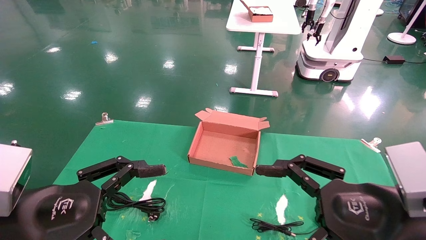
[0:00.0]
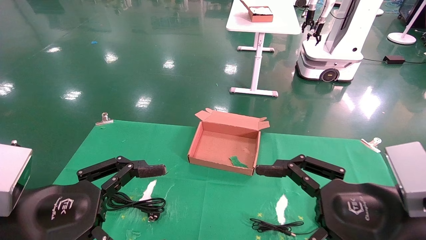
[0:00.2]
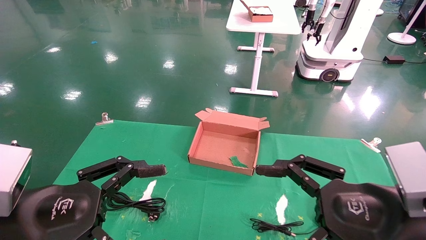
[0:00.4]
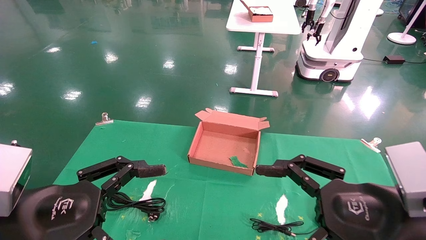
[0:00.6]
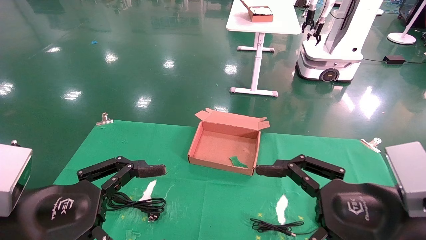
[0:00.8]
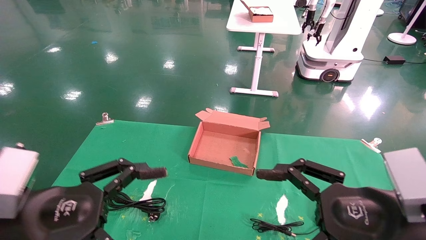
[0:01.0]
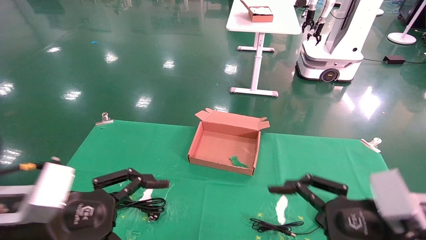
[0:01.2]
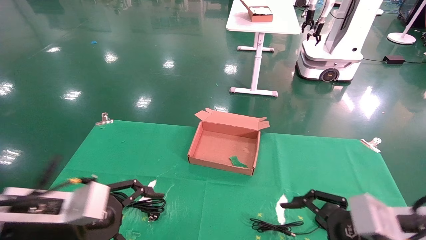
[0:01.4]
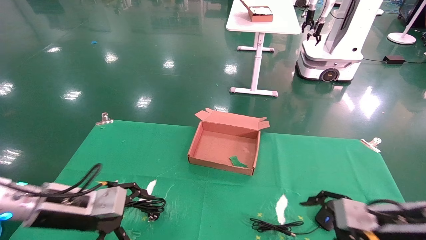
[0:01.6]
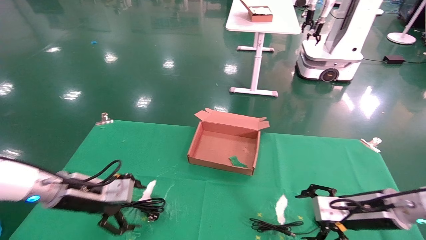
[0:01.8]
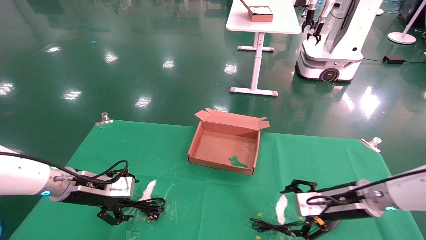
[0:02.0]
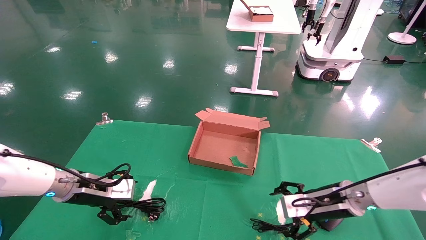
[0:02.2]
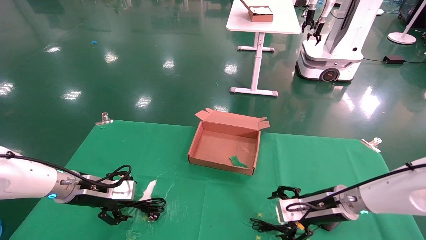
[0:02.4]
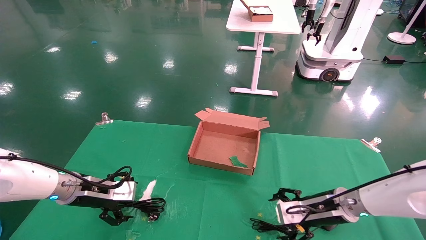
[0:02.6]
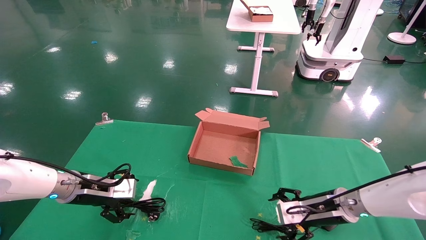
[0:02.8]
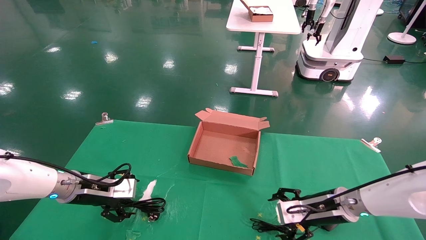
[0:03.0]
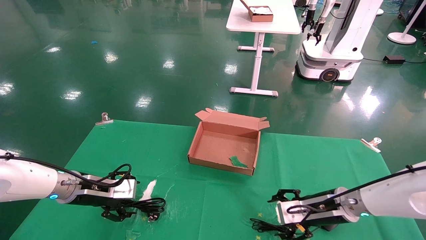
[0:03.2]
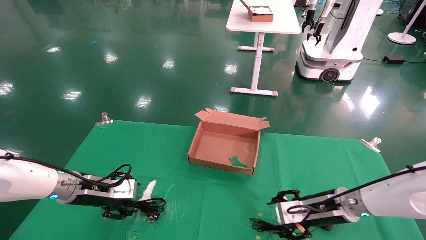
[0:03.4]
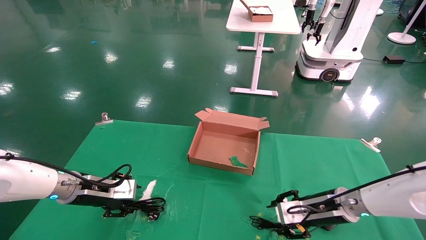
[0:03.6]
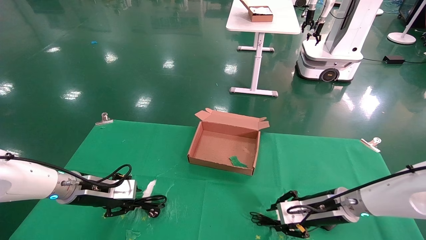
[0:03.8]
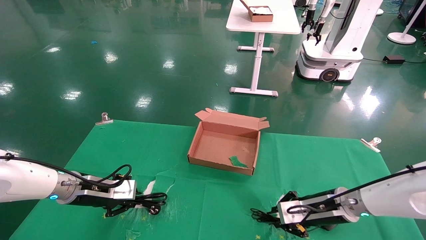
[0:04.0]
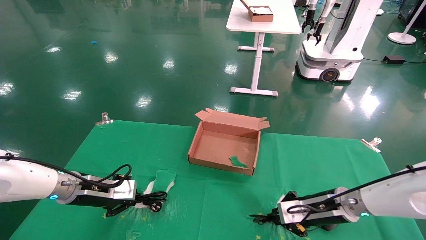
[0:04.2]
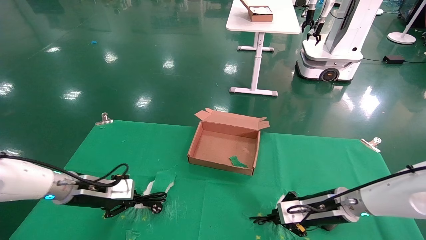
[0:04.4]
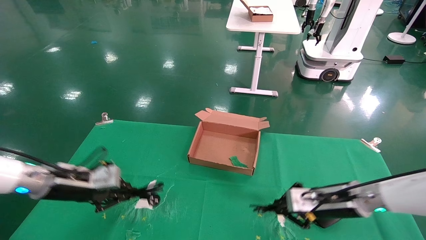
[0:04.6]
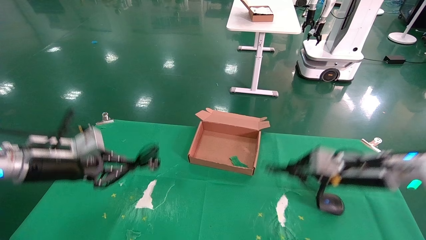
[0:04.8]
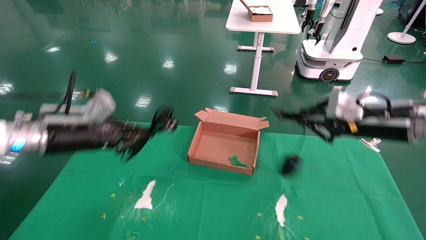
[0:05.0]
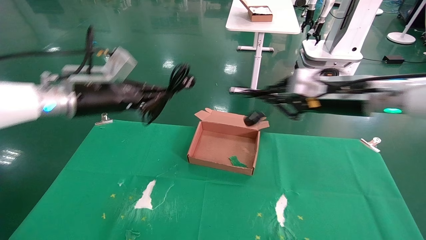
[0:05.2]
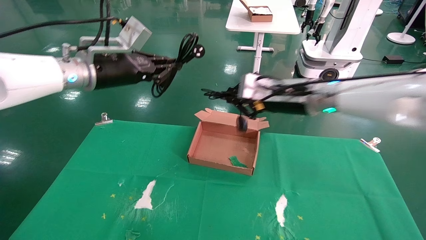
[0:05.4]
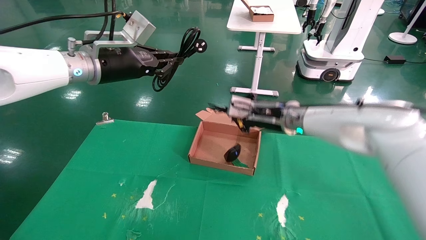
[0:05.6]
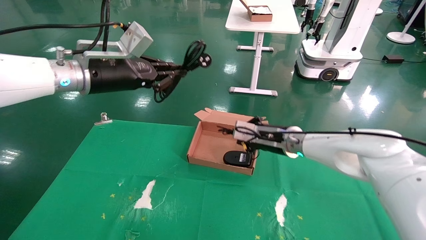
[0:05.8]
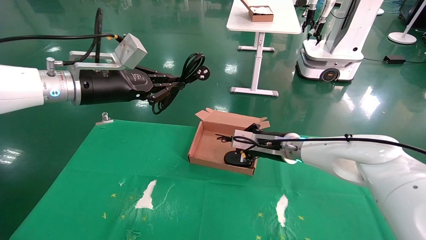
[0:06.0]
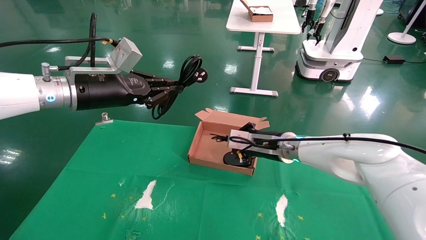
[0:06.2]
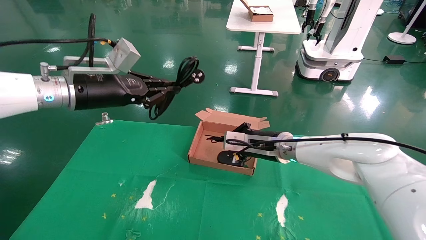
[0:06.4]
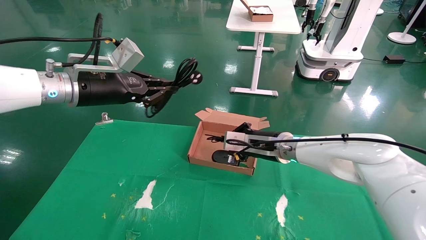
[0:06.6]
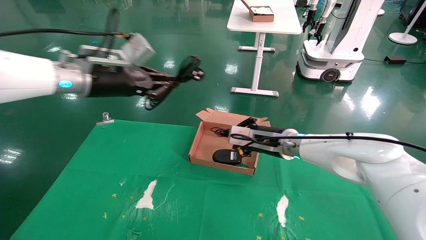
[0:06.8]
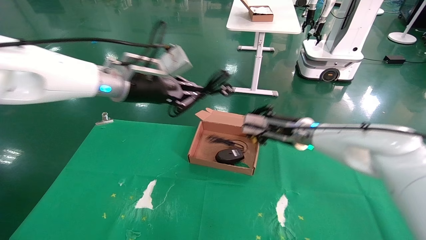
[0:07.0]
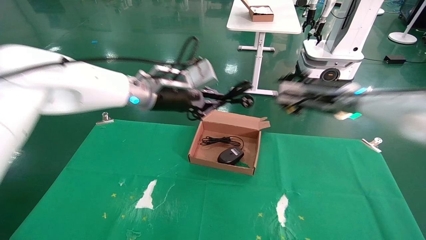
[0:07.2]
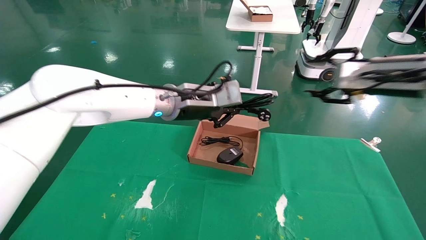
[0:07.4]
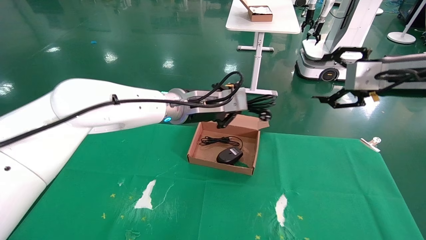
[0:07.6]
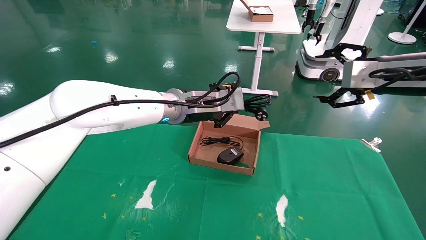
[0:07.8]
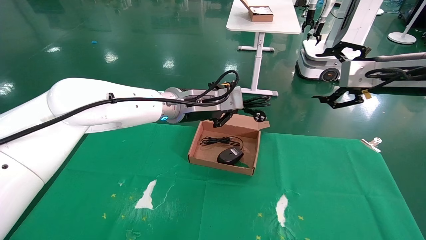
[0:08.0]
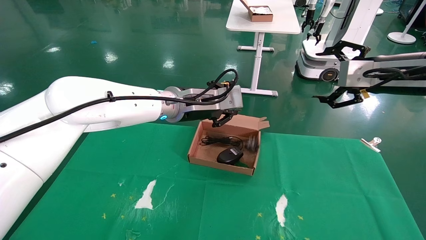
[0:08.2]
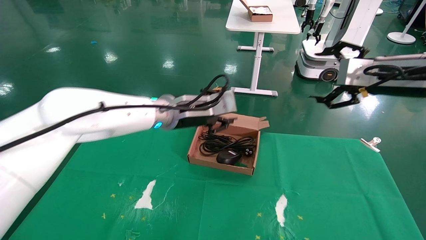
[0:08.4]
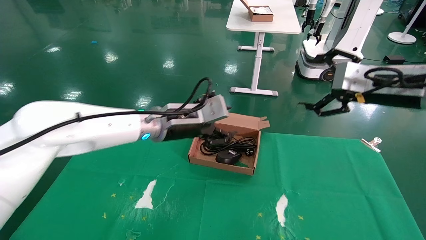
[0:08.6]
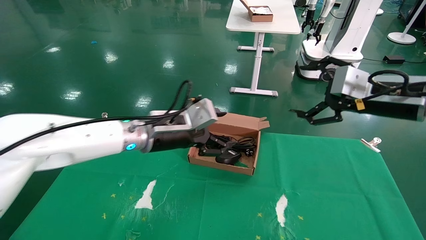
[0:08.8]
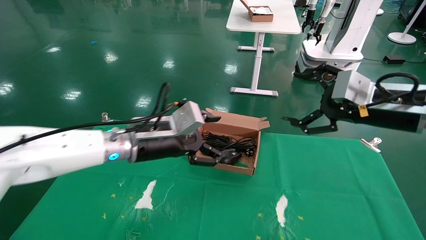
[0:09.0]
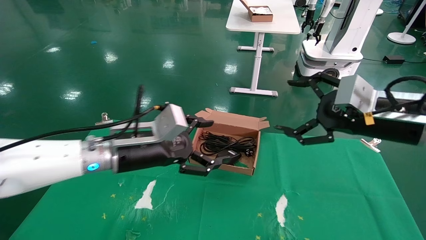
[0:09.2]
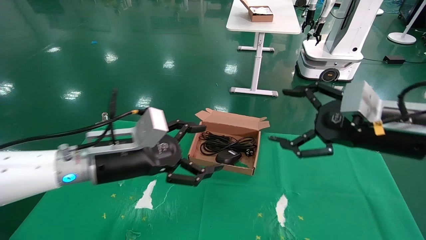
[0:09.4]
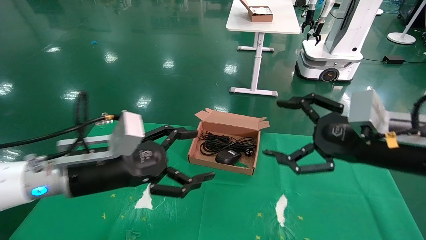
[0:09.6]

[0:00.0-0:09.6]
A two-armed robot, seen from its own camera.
Step, 0:01.6 to 0:04.8: Grab and lift both the mouse and power cord from the accessory packaging area at the same time.
Step, 0:05.0 to 0:08.4: Place the mouse and power cord into the box.
0:00.0 to 0:01.6: The left gripper travels forward by about 15 cm, while the right gripper travels forward, downward and to the right by roughly 15 cm.
0:01.6 to 0:03.2: The left gripper shifts approximately 10 cm forward. The right gripper is displaced forward and to the left by some 10 cm.
0:03.2 to 0:04.8: Both grippers move upward, about 10 cm. The right gripper closes, while the left gripper closes.
0:04.8 to 0:06.4: The left gripper travels upward and to the right by some 15 cm, while the right gripper moves to the left and forward, approximately 20 cm.
0:06.4 to 0:08.0: The left gripper travels to the right by some 20 cm, while the right gripper travels to the right, upward and backward by about 30 cm, and opens up.
0:08.0 to 0:09.6: The right gripper goes approximately 15 cm downward, backward and to the left, while the left gripper heads to the left, backward and downward, covering roughly 20 cm, and opens its fingers.

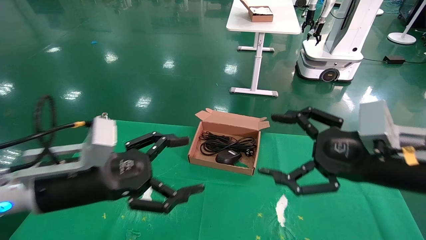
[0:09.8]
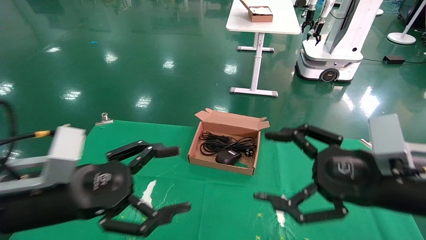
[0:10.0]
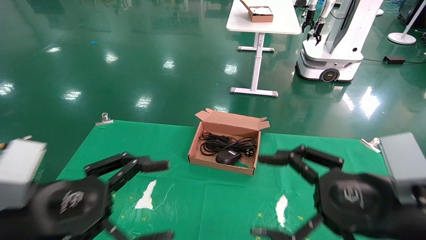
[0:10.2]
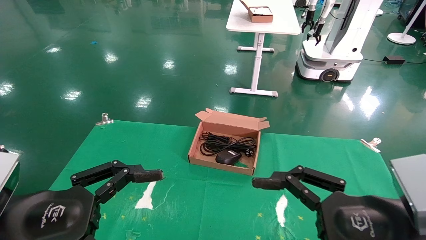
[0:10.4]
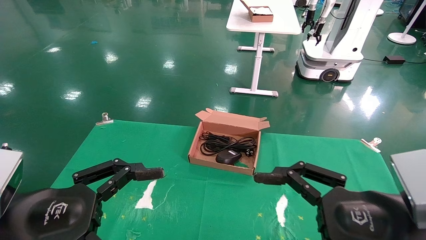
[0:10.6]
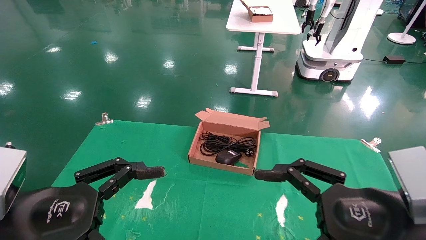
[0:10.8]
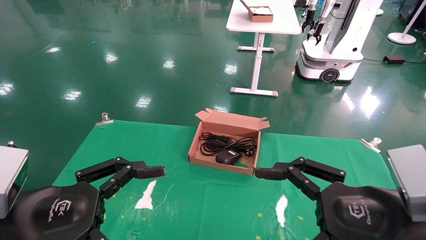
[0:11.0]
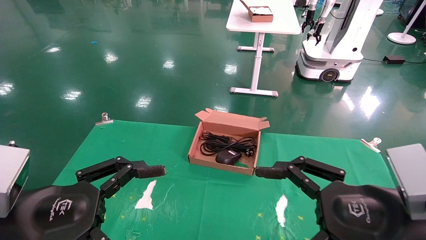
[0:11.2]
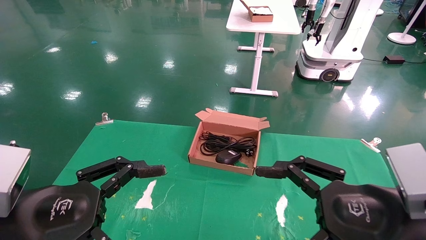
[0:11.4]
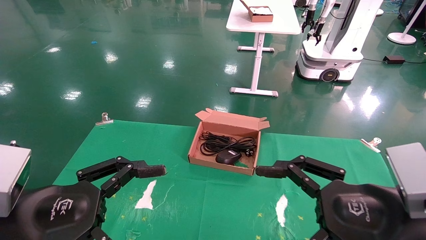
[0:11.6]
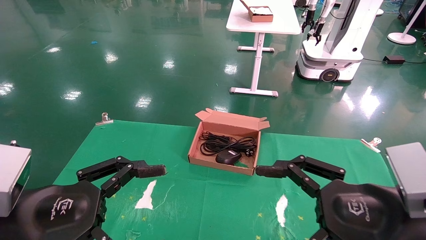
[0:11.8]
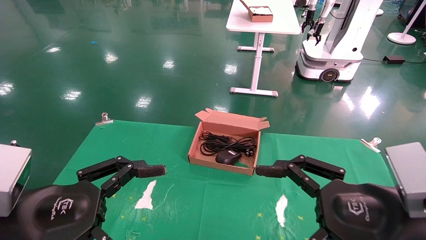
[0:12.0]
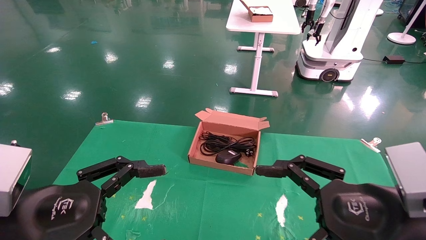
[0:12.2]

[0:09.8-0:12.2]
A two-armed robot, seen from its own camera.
0:09.8 to 0:11.0: The two grippers go about 10 cm backward.
0:11.0 to 0:12.2: Both grippers stay put.

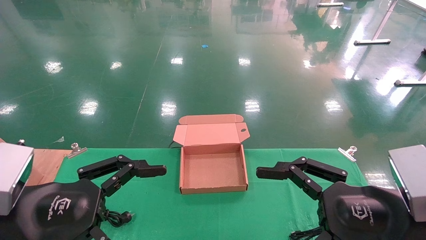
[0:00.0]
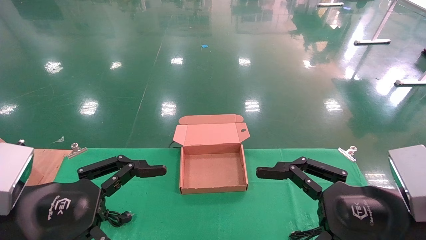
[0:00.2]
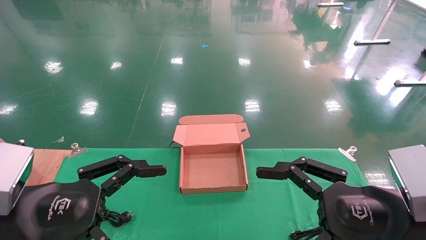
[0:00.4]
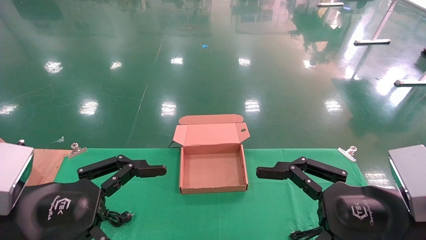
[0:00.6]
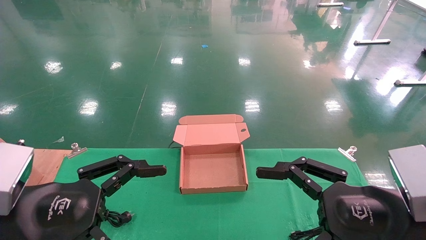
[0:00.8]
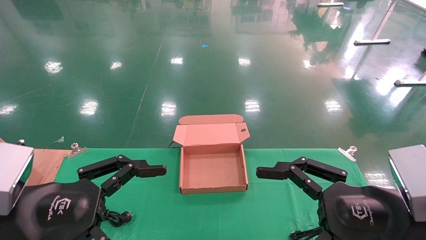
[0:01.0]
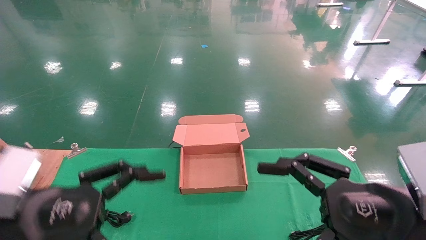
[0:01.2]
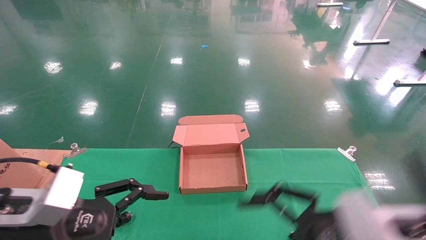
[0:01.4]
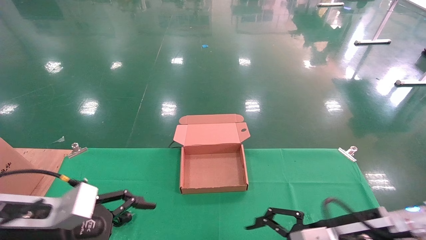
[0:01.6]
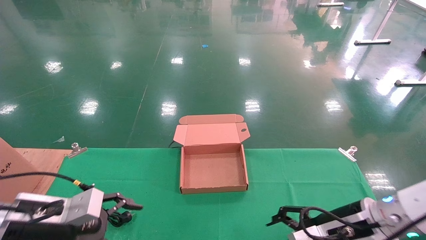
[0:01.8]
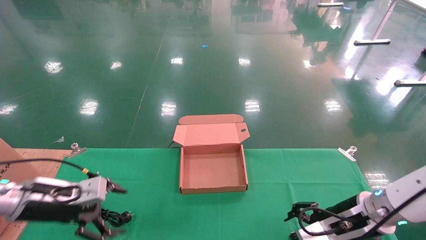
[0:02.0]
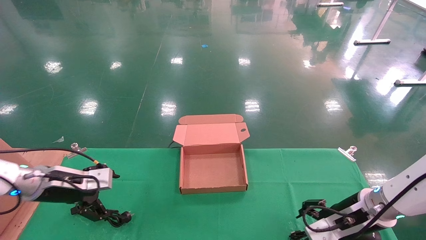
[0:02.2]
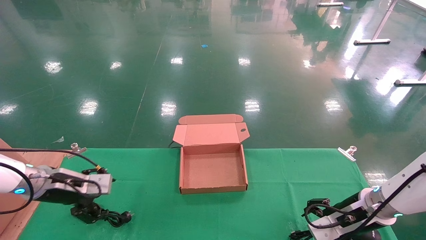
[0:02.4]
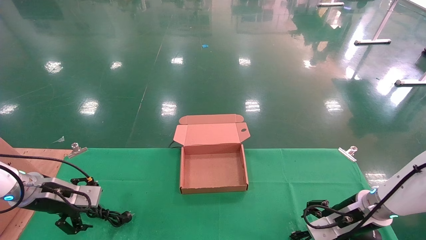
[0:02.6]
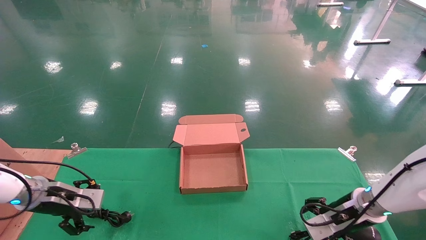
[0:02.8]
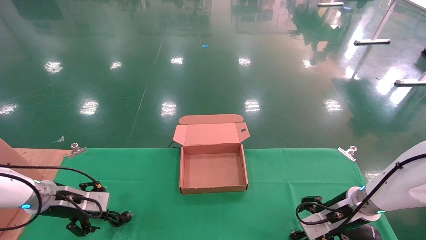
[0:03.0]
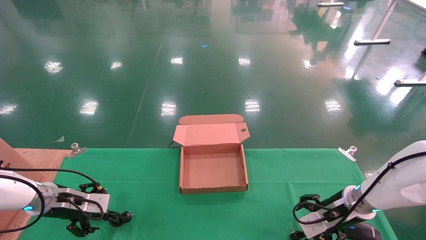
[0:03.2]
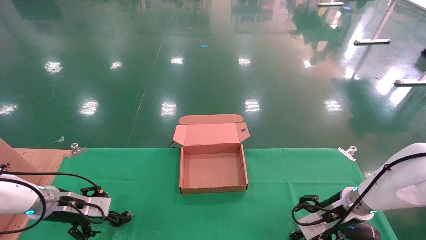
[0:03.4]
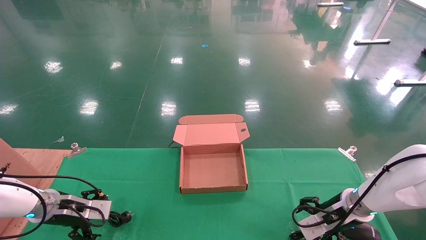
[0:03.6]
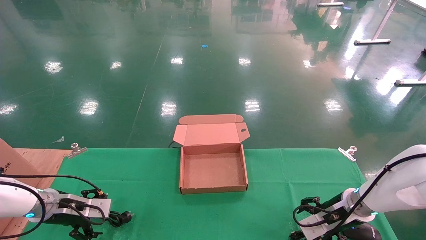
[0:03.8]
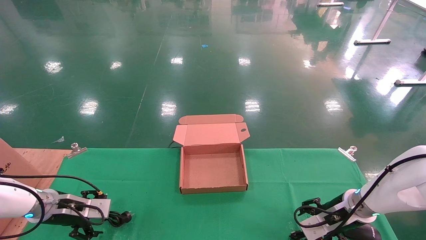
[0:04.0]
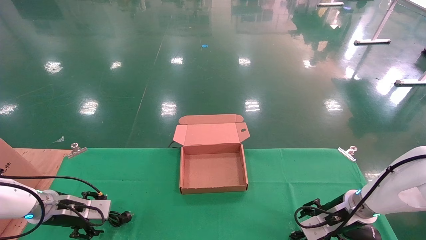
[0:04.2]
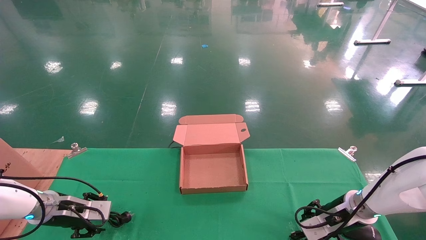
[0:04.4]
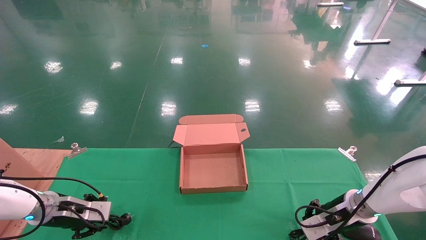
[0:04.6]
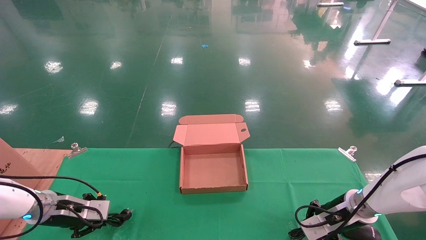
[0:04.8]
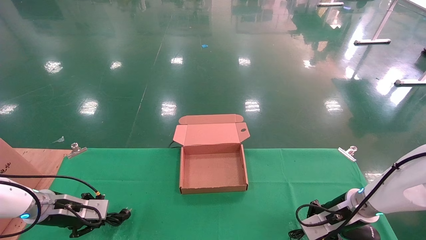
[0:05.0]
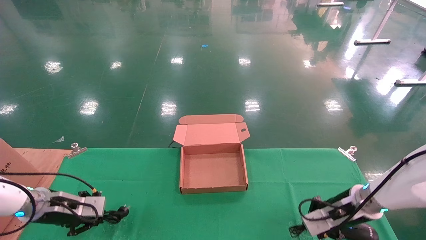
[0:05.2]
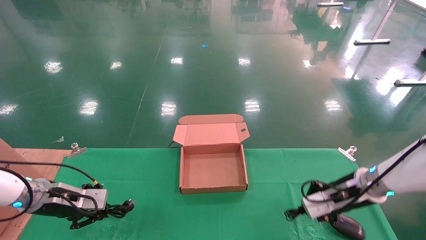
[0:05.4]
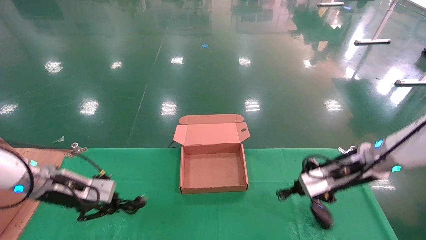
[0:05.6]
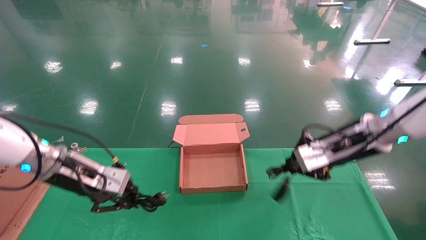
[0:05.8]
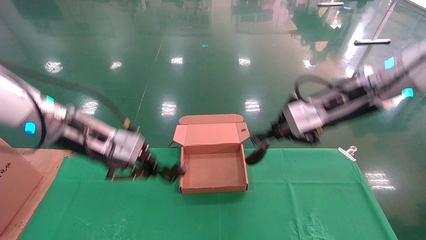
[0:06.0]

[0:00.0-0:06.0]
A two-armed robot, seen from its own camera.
0:00.0 to 0:01.6: Both grippers travel together forward and downward, some 10 cm.
0:01.6 to 0:03.0: The left gripper heads forward, to the left and downward, covering approximately 20 cm; the right gripper moves forward, to the right and downward, roughly 15 cm.
0:03.0 to 0:04.4: The left gripper closes its fingers. Meanwhile the right gripper closes up.
0:04.4 to 0:06.0: The left gripper goes approximately 25 cm upward and to the right, and closes up; the right gripper travels upward by approximately 25 cm, and closes its fingers.
